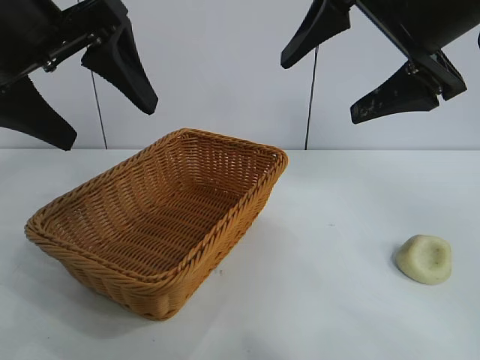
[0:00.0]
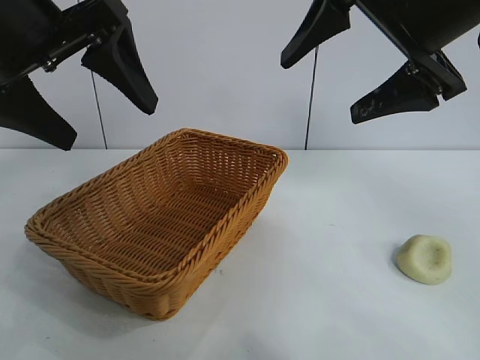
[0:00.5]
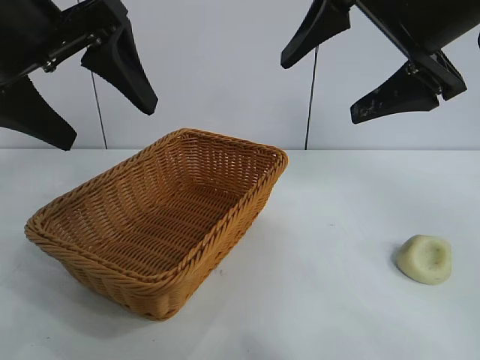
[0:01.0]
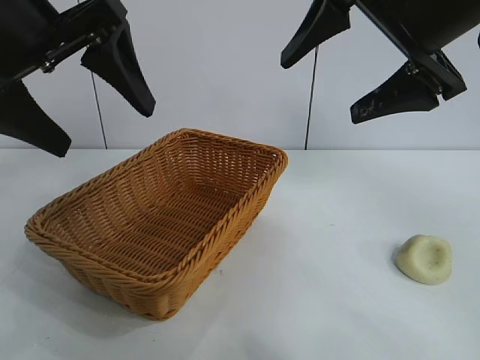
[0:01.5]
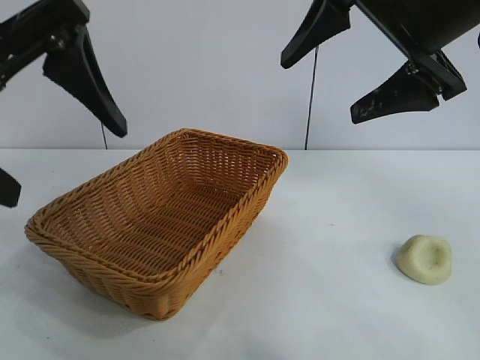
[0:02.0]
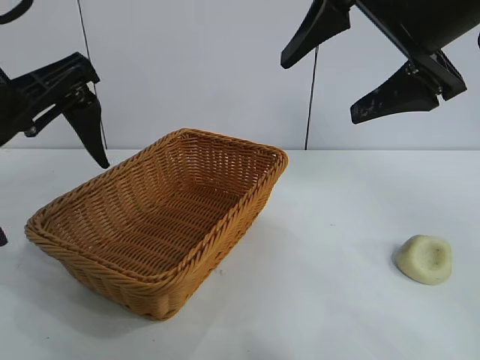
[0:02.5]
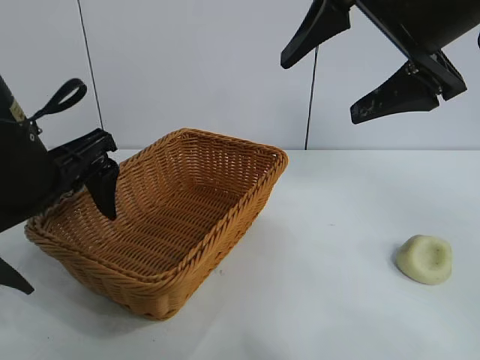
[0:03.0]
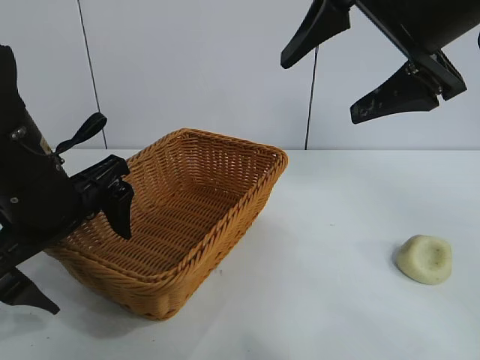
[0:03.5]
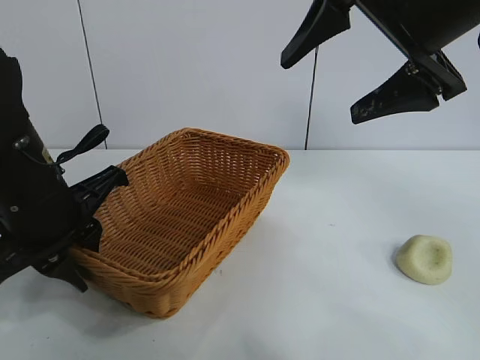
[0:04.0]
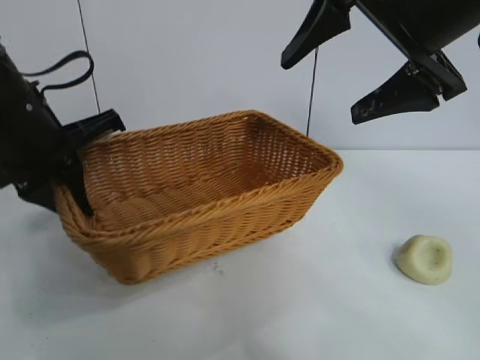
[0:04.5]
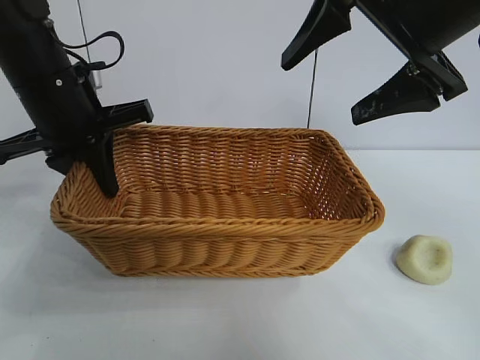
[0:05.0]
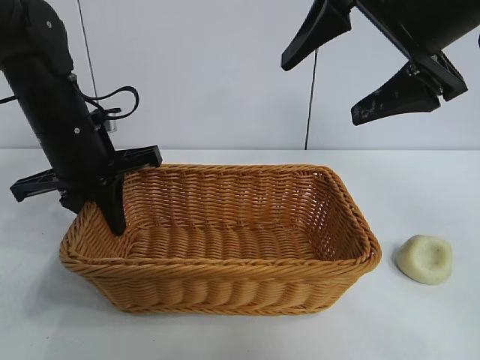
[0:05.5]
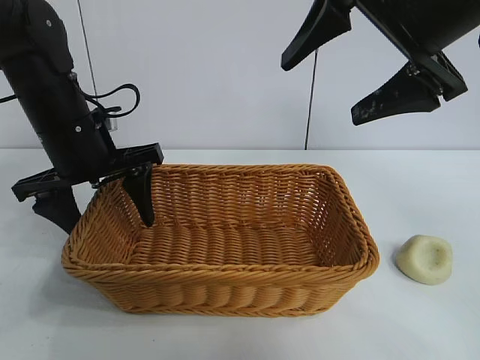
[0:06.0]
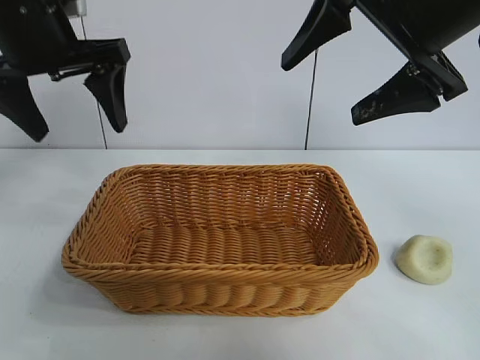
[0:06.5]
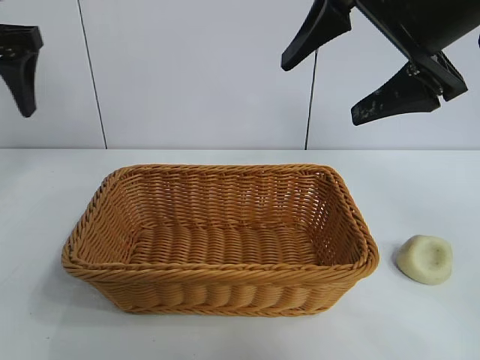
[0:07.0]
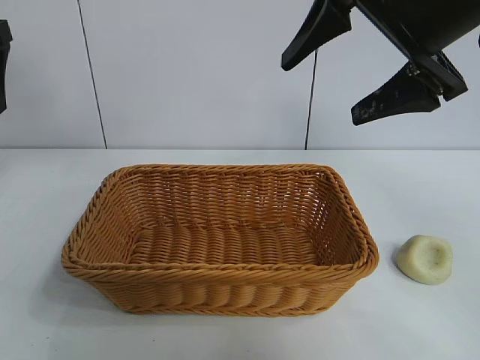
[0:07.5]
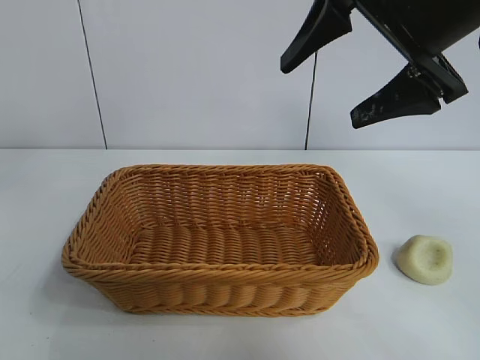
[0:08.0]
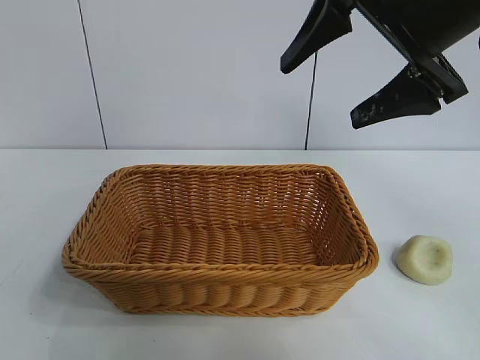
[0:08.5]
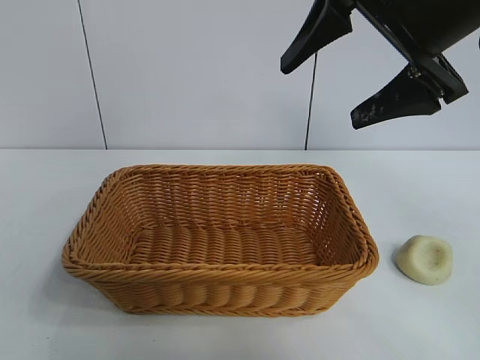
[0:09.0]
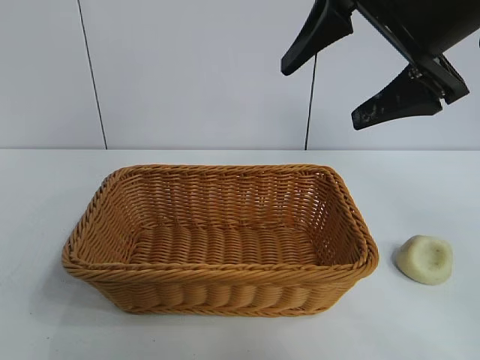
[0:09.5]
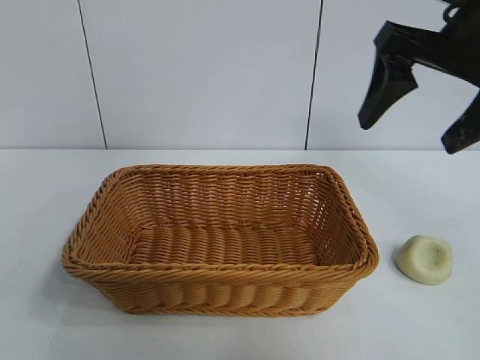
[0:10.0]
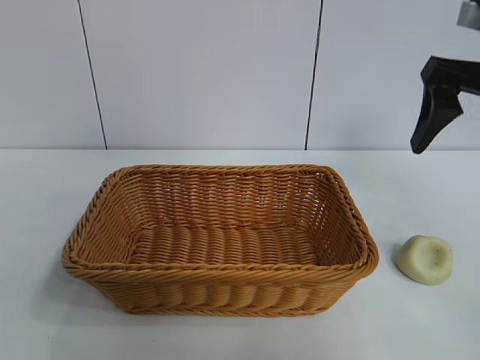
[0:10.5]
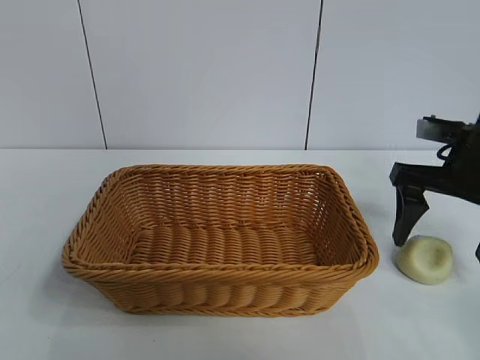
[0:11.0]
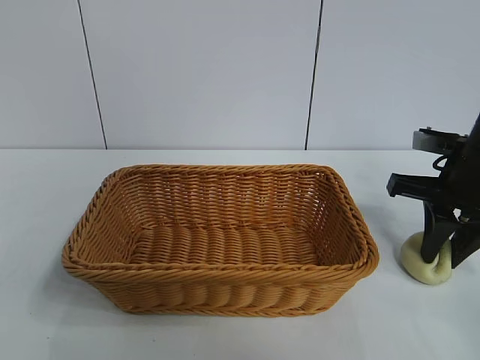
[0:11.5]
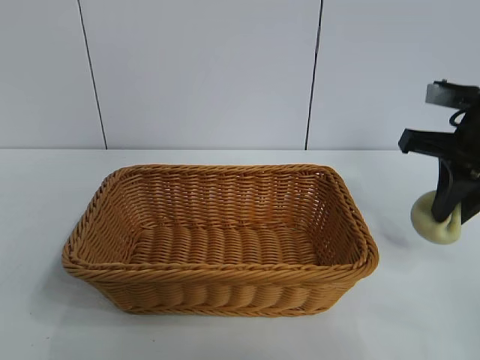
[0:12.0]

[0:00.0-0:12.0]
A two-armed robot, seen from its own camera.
Task of the whole recording: pick up the egg yolk pastry and put it into the basket.
Step, 0:01.5 to 0:04.0: Grasp the basket with left gripper.
Step, 0:04.5 to 0:05.5: Place the basket in the center of view with left gripper.
Step, 0:06.0 to 0:11.5: Grasp egg yolk pastry with right gripper.

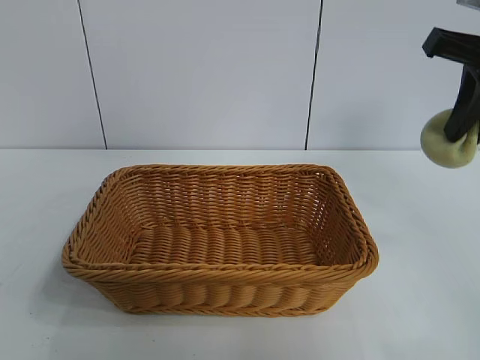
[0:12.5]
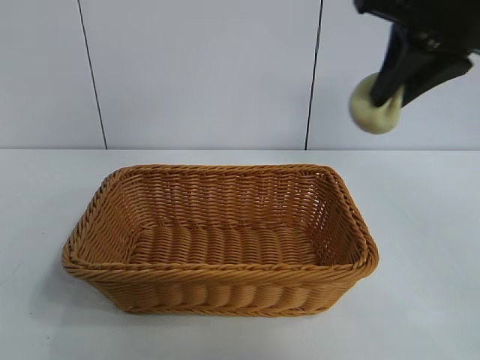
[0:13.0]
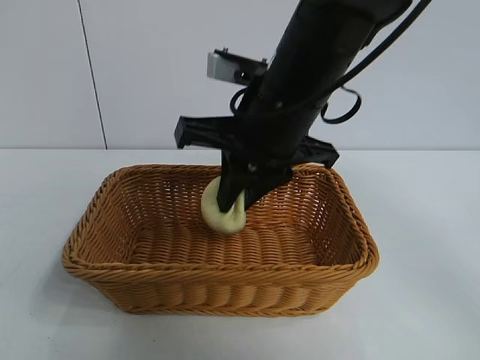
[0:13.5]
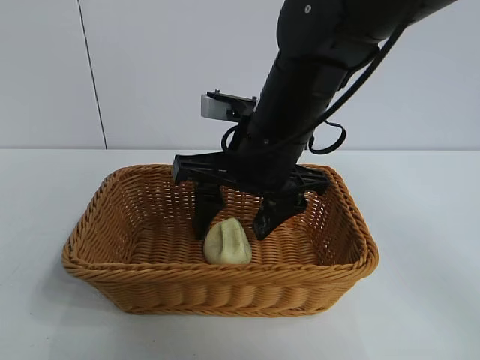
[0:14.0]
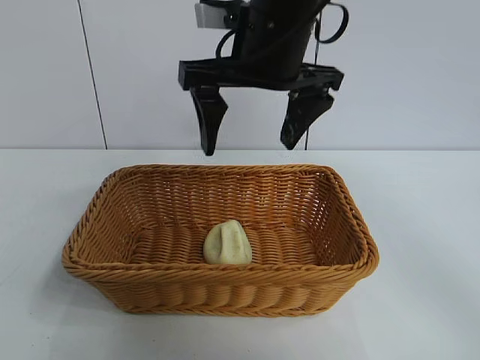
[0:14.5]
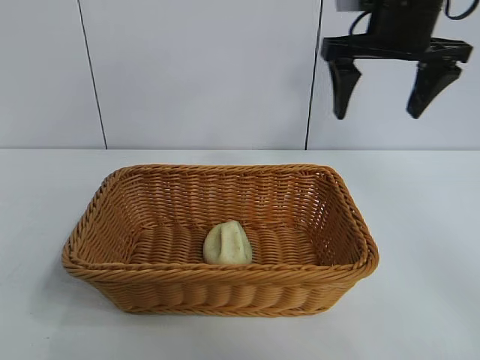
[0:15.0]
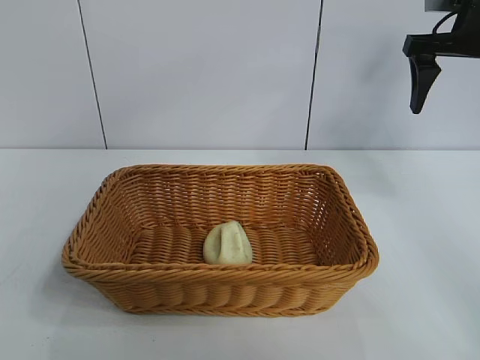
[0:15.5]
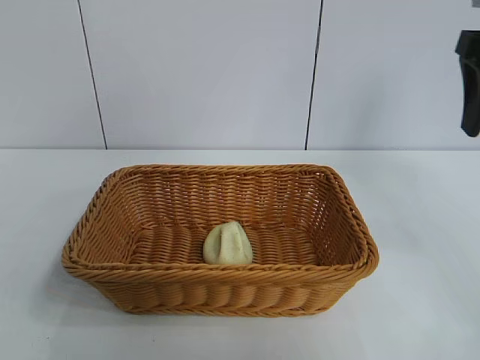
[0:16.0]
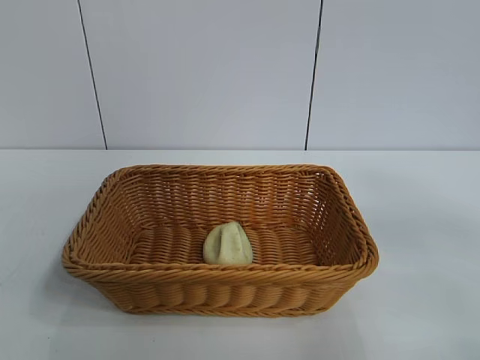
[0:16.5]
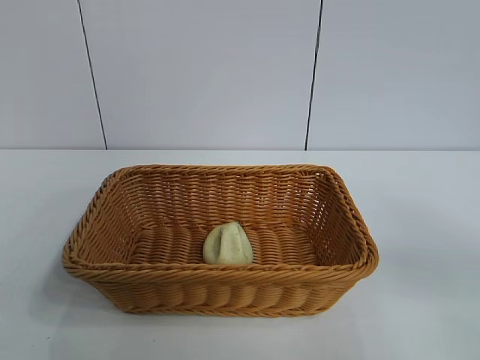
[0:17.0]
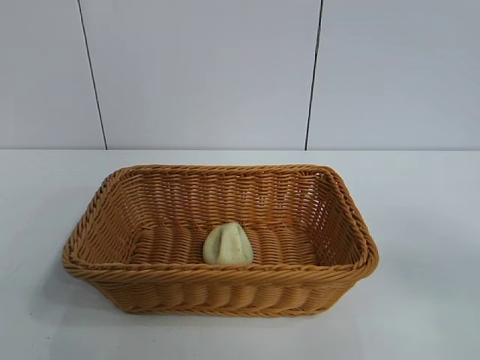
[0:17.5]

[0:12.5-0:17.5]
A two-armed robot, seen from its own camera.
Task of the whole recording: pick up the egg yolk pastry and put it into the basket.
Step, 0:12.5 to 0:14.0: Place the egg yolk pastry in the basket with right gripper.
